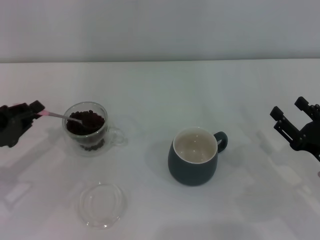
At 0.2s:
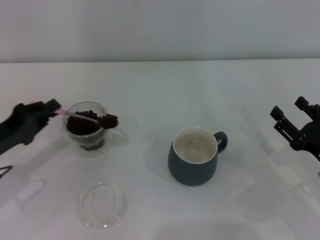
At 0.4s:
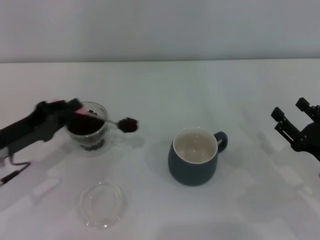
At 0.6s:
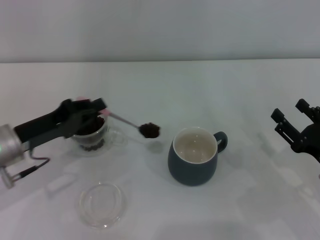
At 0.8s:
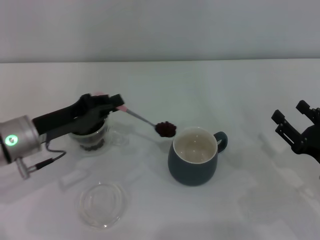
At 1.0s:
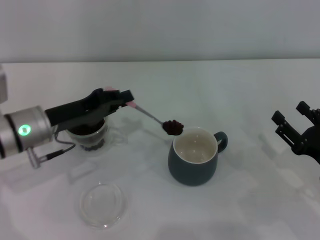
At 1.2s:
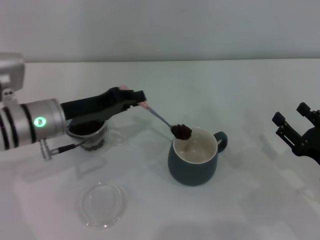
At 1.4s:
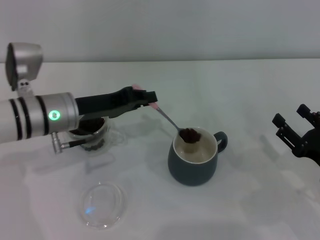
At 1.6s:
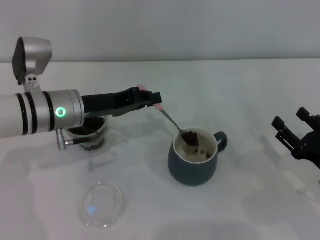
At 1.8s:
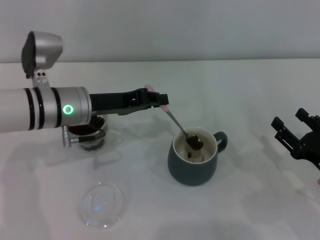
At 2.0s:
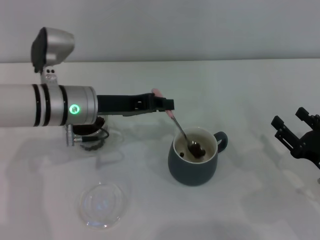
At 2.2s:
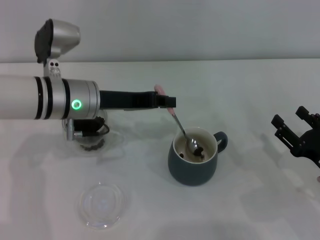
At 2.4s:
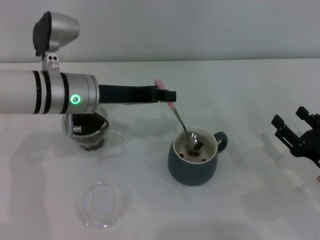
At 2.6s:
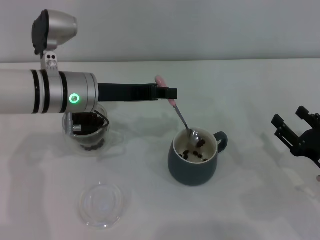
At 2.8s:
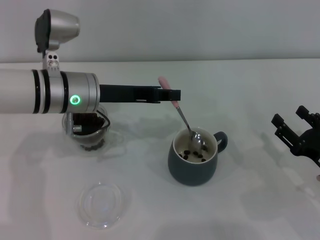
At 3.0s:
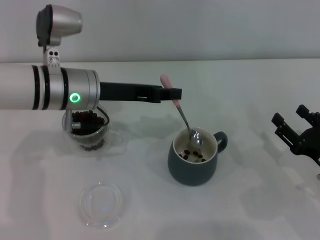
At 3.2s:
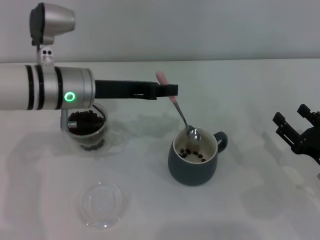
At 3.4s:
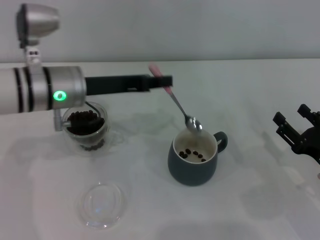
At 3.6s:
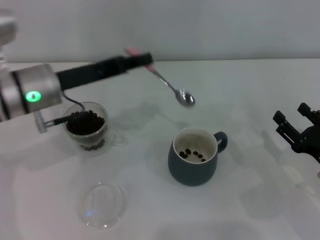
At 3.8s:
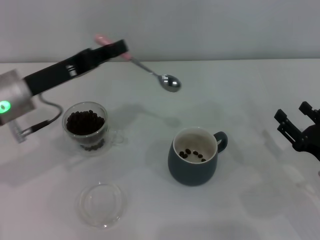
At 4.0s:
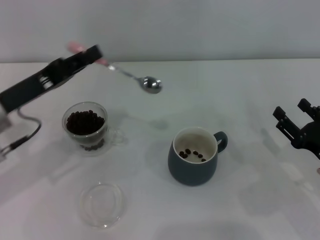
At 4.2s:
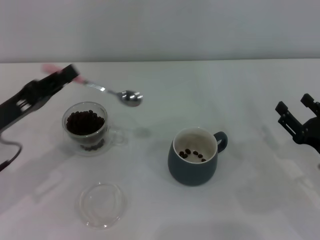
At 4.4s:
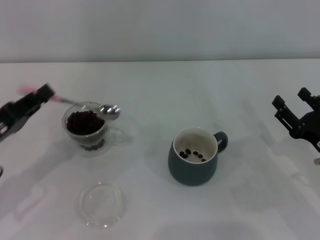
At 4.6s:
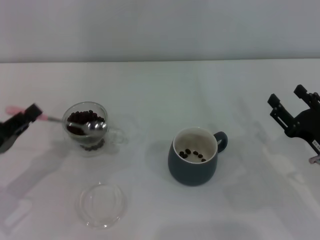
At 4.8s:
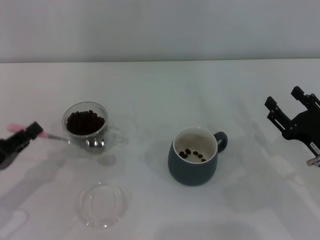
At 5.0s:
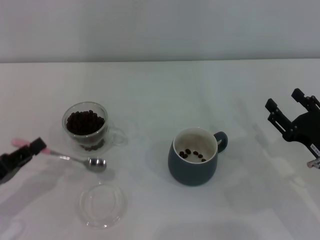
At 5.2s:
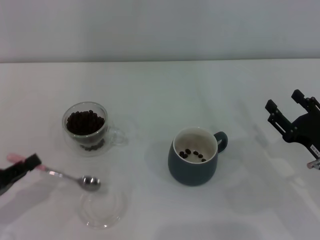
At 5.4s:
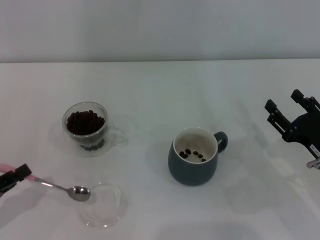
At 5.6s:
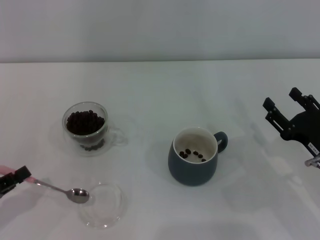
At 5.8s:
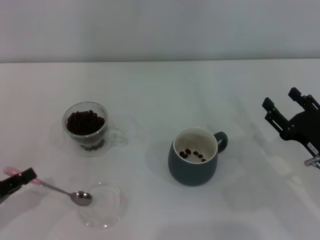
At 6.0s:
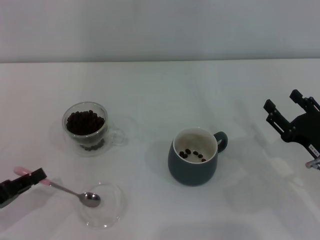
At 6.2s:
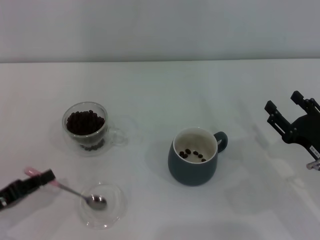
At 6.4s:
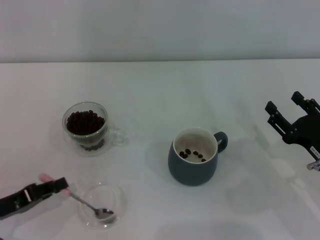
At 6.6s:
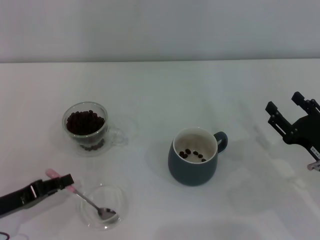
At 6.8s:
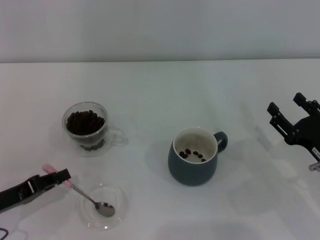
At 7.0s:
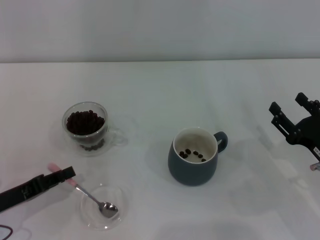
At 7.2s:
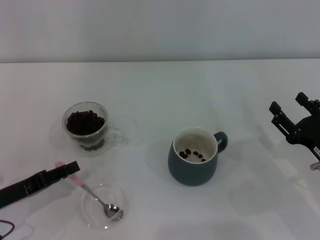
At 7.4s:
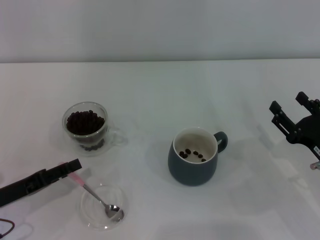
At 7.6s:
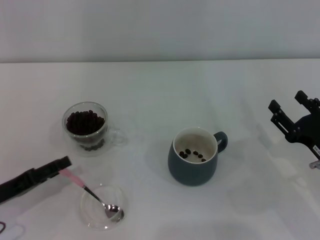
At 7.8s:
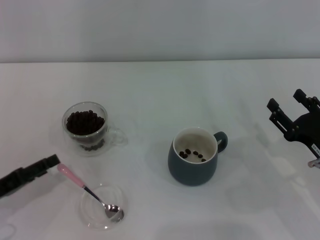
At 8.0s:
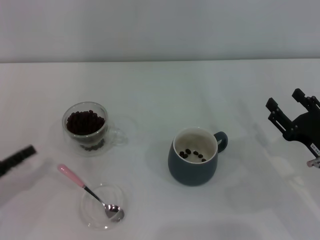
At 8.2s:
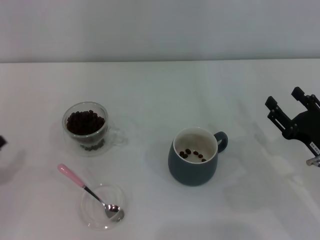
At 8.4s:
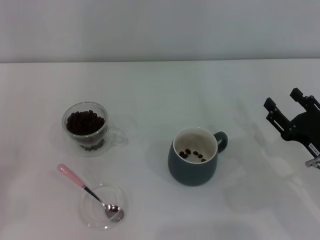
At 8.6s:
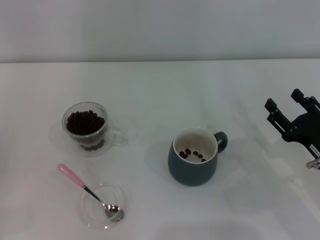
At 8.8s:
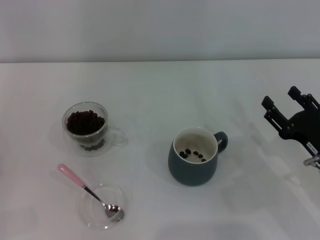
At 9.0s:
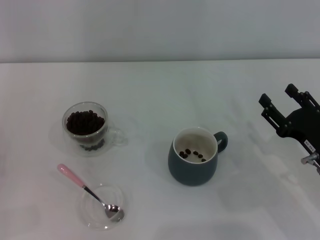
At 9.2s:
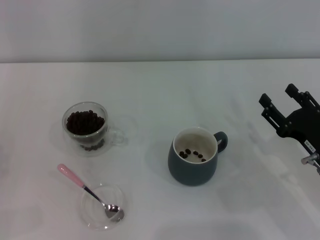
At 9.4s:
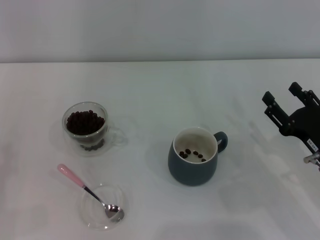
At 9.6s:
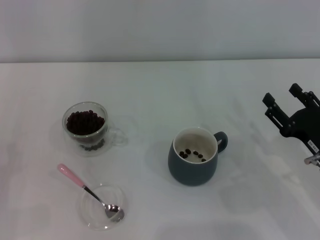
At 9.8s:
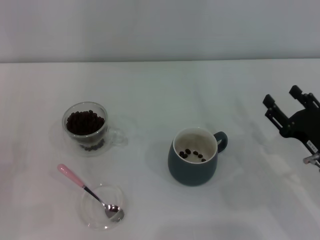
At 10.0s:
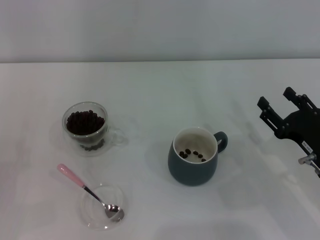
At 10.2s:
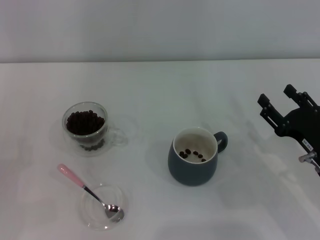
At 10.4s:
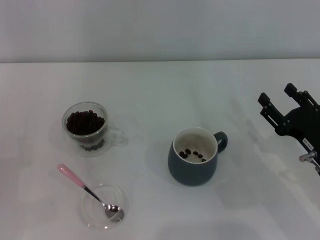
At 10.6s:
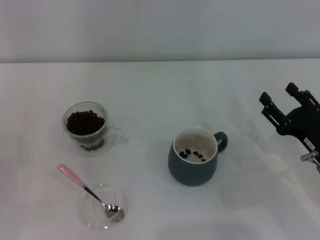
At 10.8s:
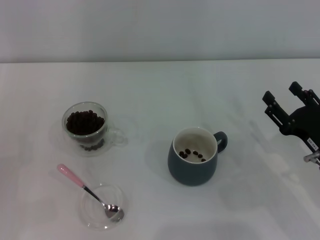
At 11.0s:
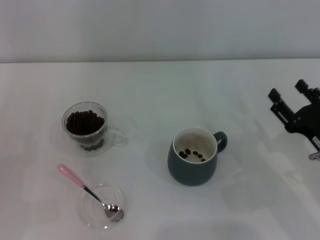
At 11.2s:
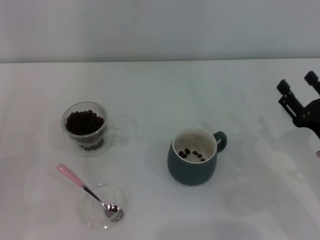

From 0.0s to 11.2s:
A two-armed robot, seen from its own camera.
Task of the whole recording: Use a pink spoon to take out the coffee beans from the glass and pour them into the gray cup.
From 0.0s to 1.6s: The left gripper goes approximately 15 cm to the right and forward.
From 3.2s to 4.8s: The left gripper is displaced to the left, backward and downward by about 25 cm.
From 6.4s to 8.0s: The left gripper opens.
From 9.6s to 11.2s: The grippers stay close to where they were, moving slightly.
